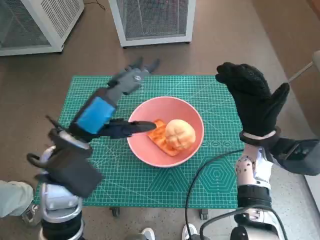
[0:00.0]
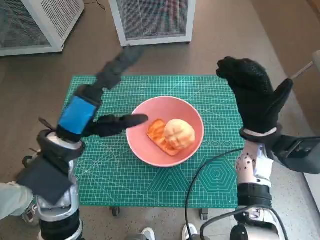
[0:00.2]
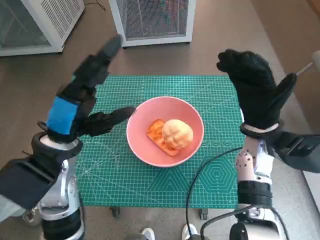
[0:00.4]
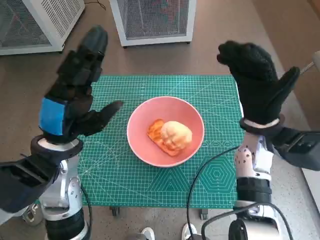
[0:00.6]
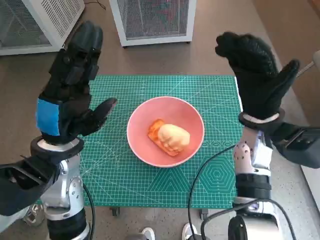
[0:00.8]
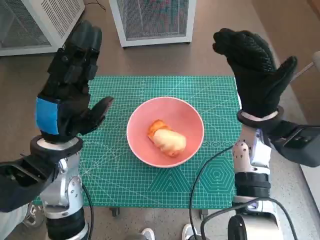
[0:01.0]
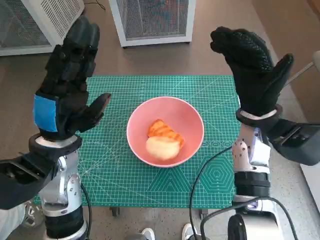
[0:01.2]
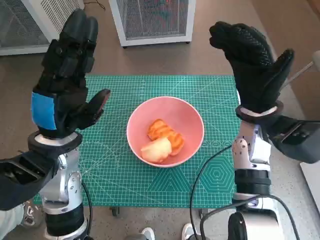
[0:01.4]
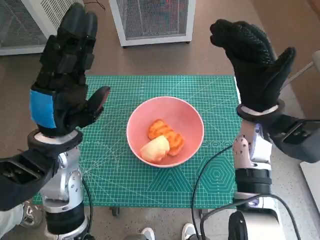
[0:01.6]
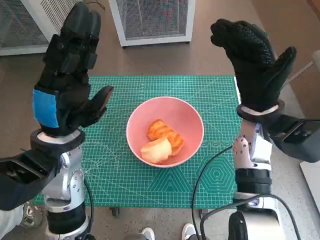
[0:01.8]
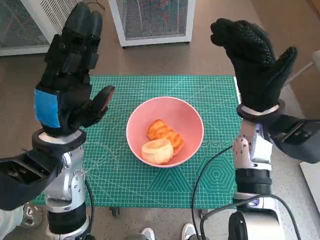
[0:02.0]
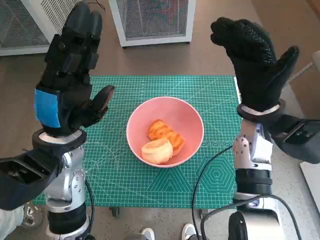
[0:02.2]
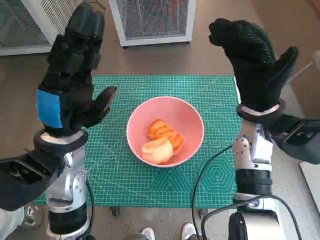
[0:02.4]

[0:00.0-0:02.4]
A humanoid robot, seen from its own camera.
Task of the whole recording: Push the bowl into the center of the table and put the bread into the bowl.
0:00.0 to 0:01.2: The right hand moves upward, approximately 5 cm.
0:01.2 to 0:02.4: The hands stay close to where they were, moving slightly.

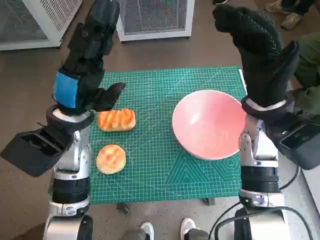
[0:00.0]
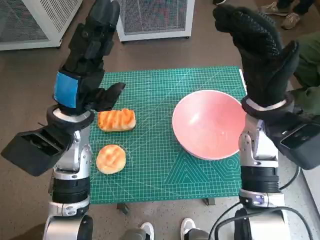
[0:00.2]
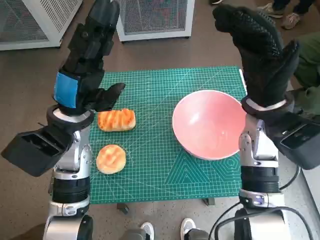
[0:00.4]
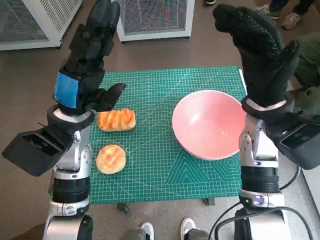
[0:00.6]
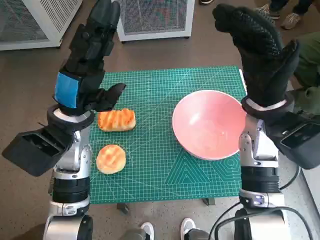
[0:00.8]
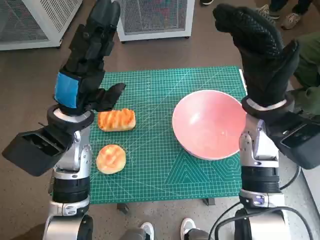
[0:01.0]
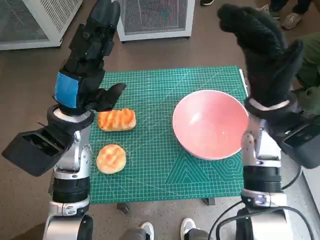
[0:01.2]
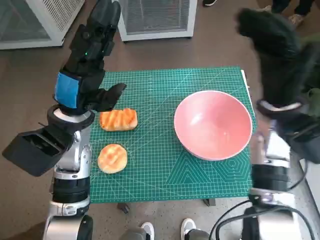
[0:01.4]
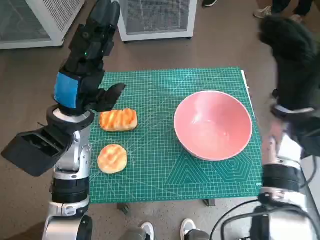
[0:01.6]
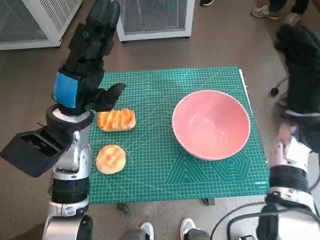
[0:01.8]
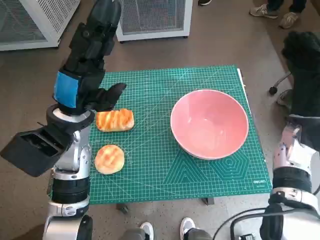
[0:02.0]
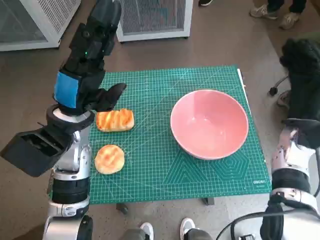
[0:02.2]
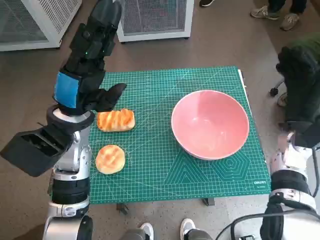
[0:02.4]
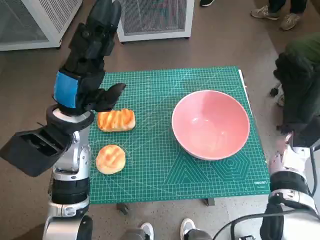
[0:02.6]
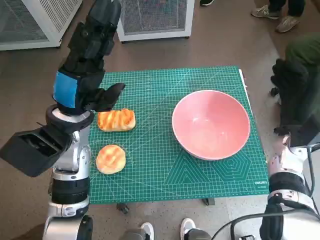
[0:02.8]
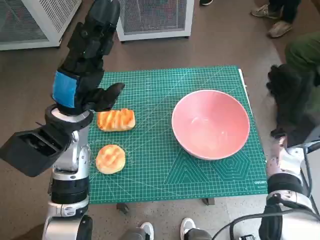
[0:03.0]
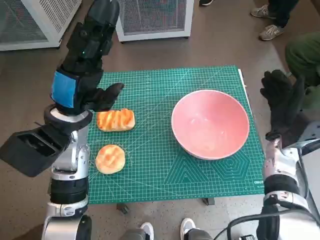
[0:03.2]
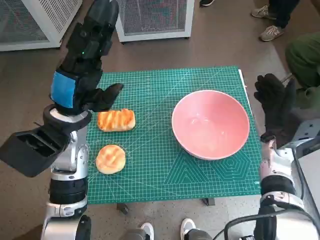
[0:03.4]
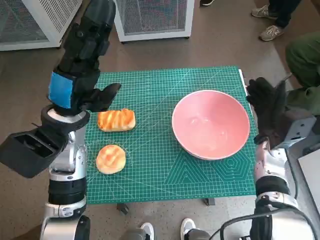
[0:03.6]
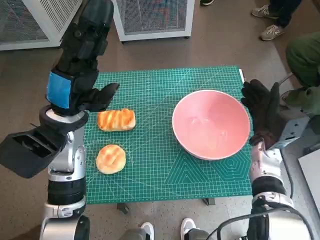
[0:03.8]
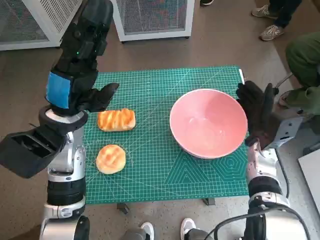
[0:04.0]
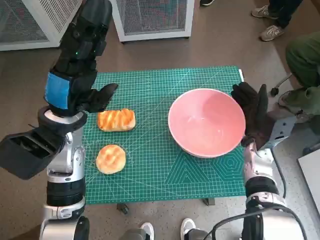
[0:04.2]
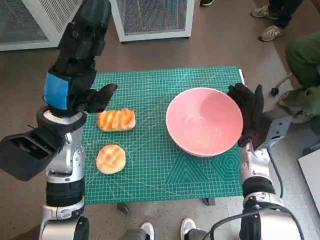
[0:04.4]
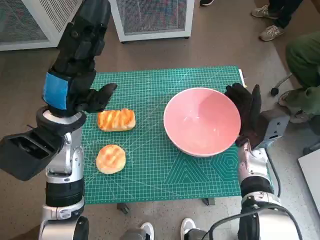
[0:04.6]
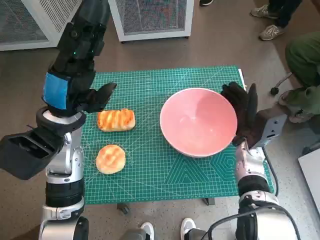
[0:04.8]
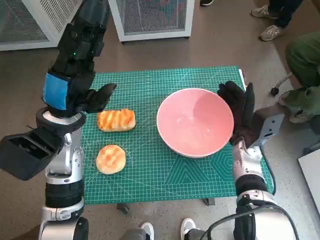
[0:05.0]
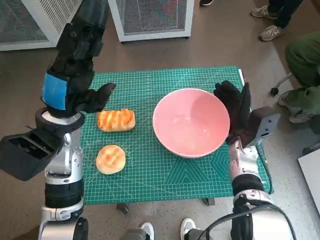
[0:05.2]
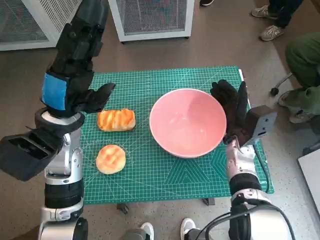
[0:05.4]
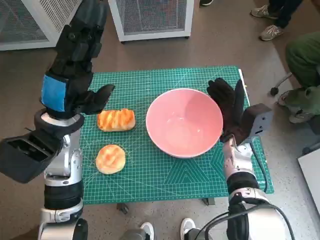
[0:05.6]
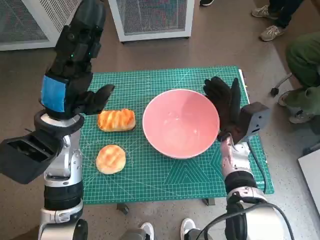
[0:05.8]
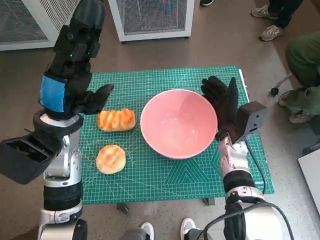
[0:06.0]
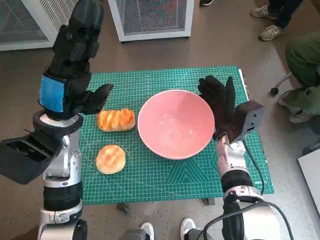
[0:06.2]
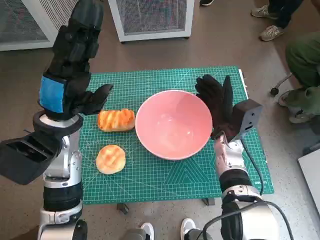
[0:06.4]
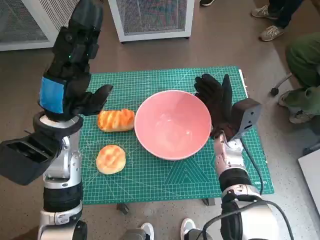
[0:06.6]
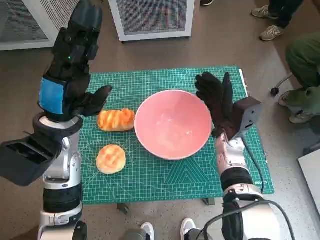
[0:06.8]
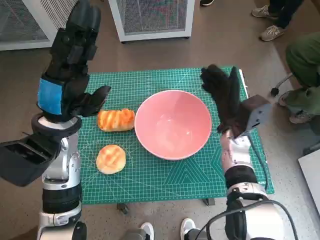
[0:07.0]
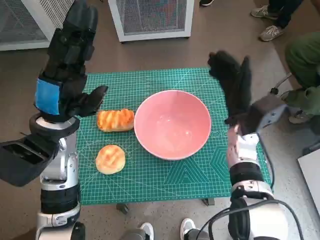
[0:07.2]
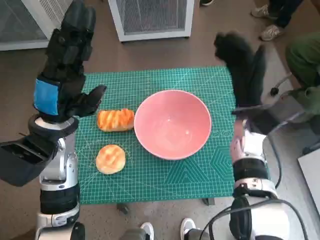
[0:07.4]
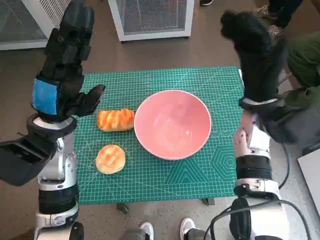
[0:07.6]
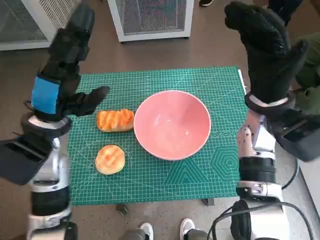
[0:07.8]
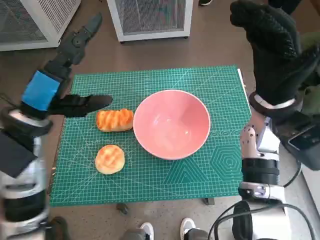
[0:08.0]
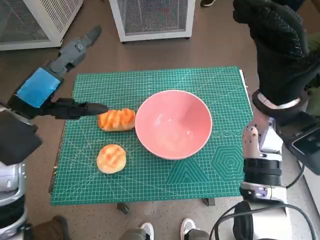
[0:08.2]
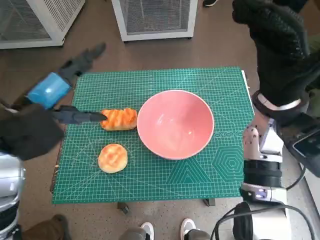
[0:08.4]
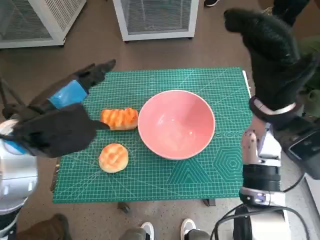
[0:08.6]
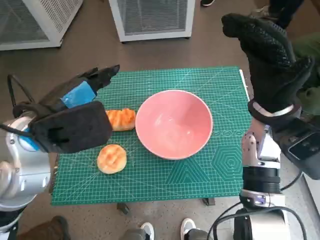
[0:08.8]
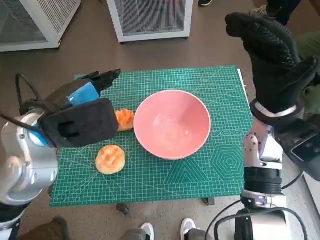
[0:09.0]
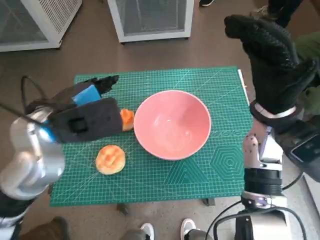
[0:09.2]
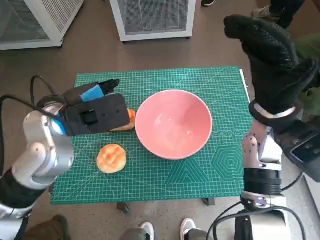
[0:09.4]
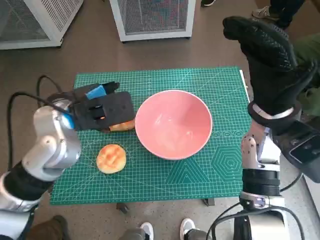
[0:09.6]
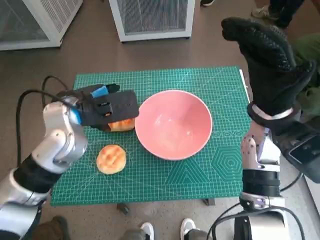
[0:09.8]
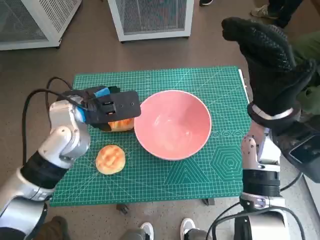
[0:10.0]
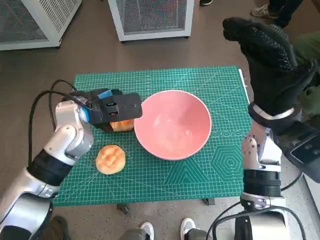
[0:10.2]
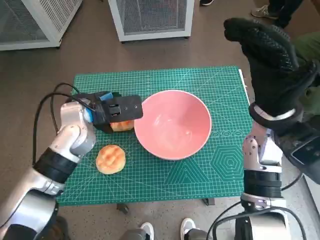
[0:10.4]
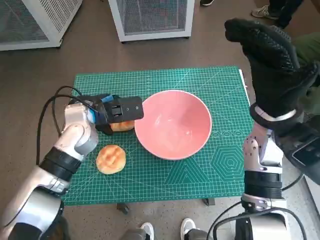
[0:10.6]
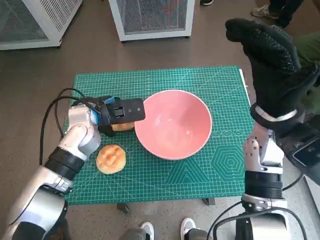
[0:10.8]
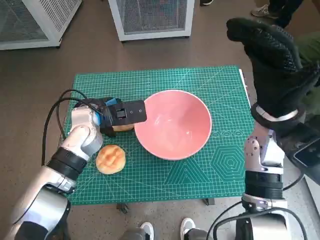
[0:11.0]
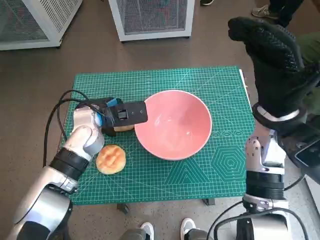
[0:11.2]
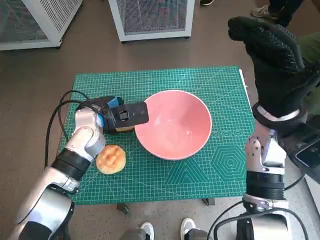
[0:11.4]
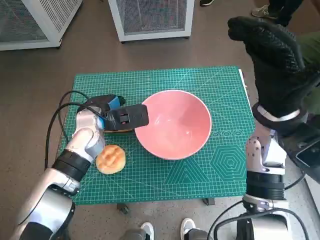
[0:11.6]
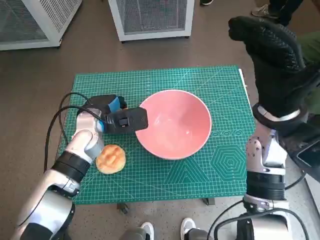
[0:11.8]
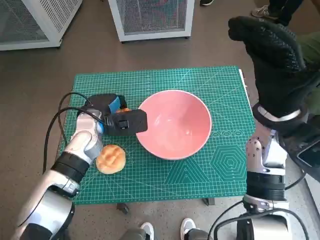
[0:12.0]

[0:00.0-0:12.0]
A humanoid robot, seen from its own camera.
Task of the whole recording: Push the bowl into the center of the table and put the bread into the bowl.
Step, 0:00.0 to 0:06.8: Move the pink bowl to the center of table with right hand.
Step, 0:07.2 to 0:11.8: Grasp the long bread with left hand.
0:01.6 to 0:03.0: The right hand shifts approximately 10 cm downward.
0:03.0 to 0:04.4: The right hand travels to the left by roughly 5 cm.
0:04.4 to 0:06.0: The right hand goes approximately 5 cm to the left.
0:06.0 to 0:07.6: The right hand heads upward, covering approximately 10 cm.
0:07.6 to 0:09.0: The left hand goes roughly 5 cm upward.
0:09.0 to 0:10.4: The left hand is displaced forward and downward by roughly 10 cm.
0:10.4 to 0:12.0: The left hand goes some 5 cm downward.

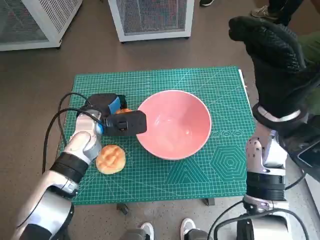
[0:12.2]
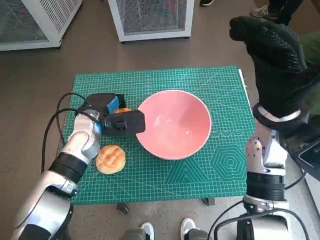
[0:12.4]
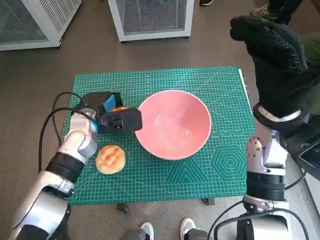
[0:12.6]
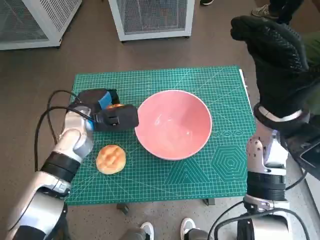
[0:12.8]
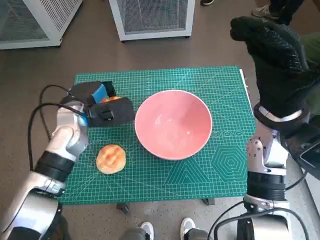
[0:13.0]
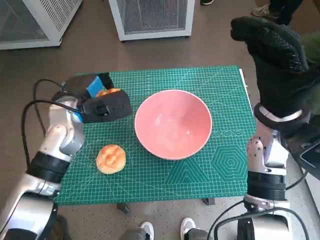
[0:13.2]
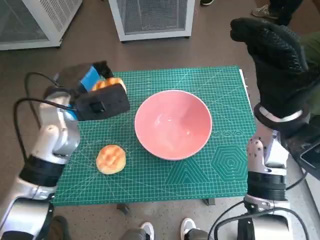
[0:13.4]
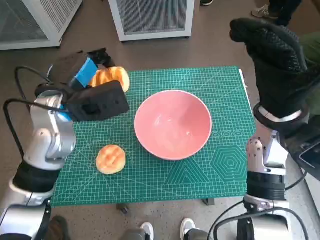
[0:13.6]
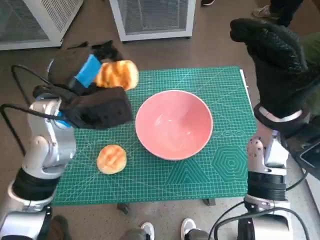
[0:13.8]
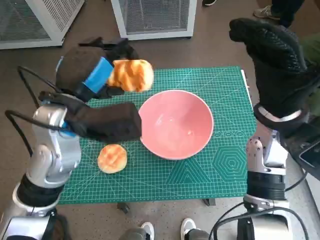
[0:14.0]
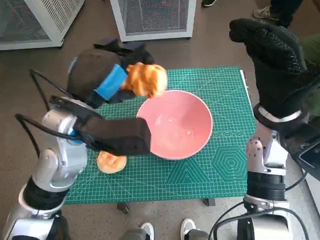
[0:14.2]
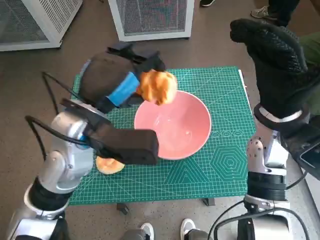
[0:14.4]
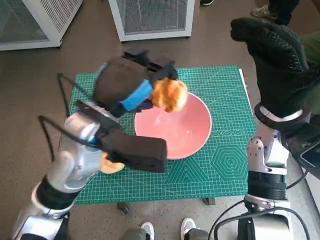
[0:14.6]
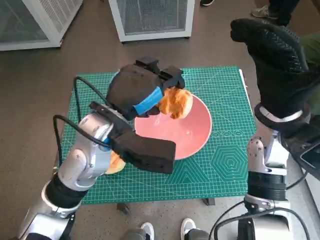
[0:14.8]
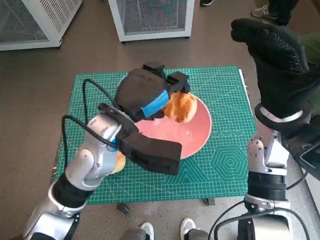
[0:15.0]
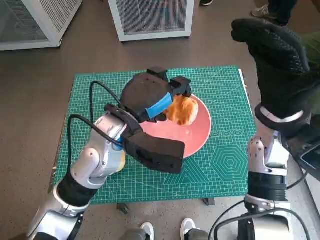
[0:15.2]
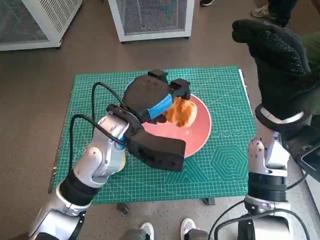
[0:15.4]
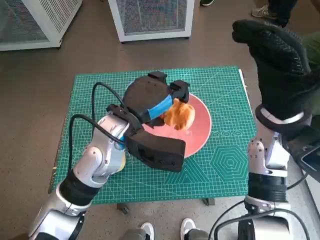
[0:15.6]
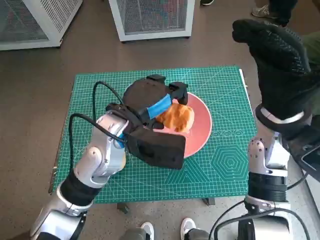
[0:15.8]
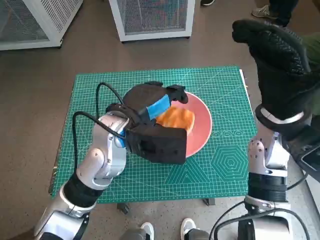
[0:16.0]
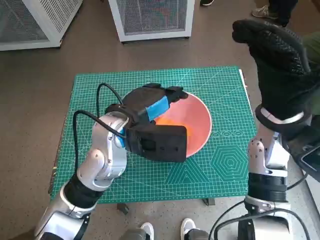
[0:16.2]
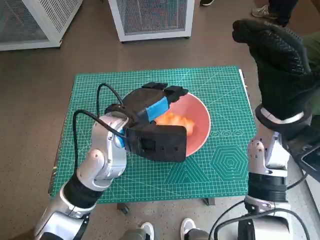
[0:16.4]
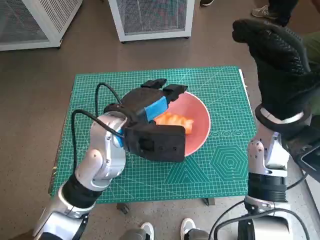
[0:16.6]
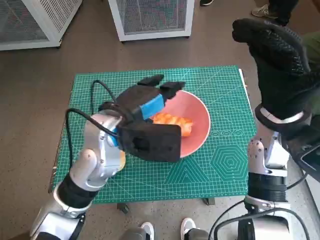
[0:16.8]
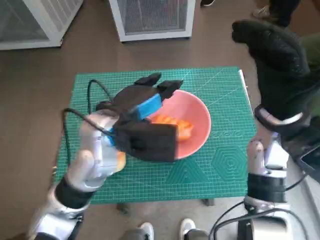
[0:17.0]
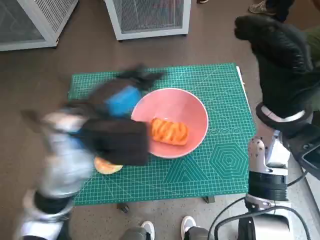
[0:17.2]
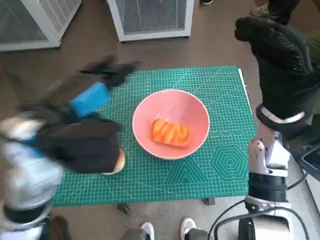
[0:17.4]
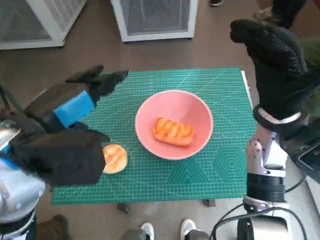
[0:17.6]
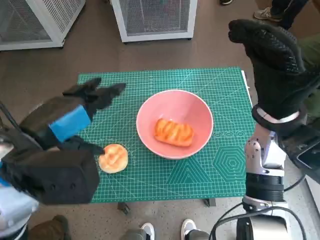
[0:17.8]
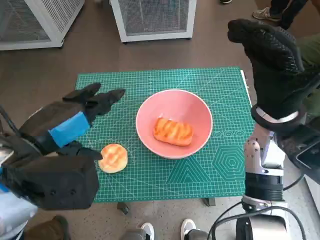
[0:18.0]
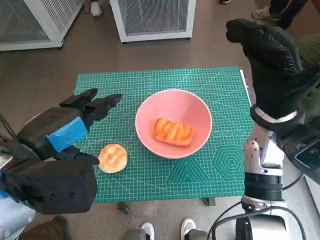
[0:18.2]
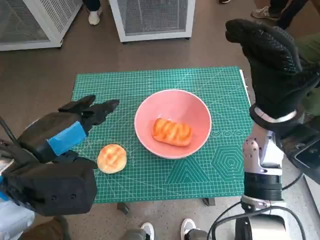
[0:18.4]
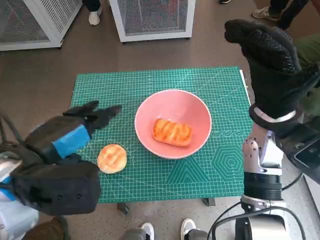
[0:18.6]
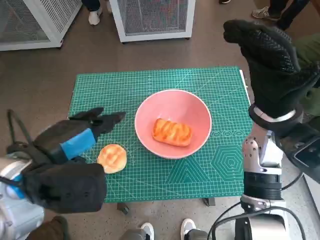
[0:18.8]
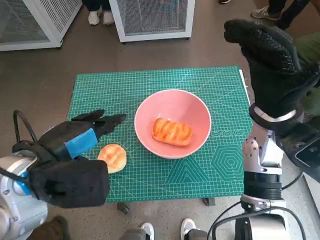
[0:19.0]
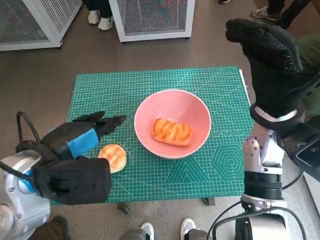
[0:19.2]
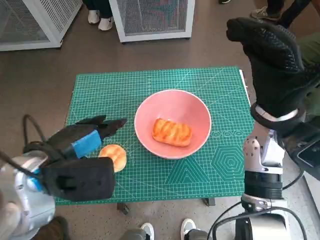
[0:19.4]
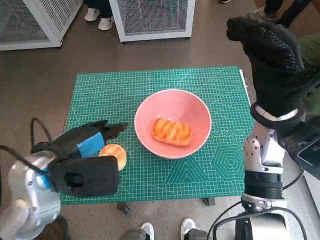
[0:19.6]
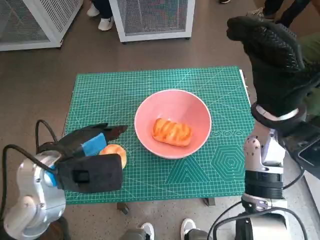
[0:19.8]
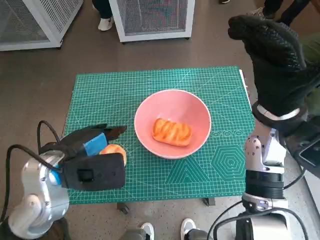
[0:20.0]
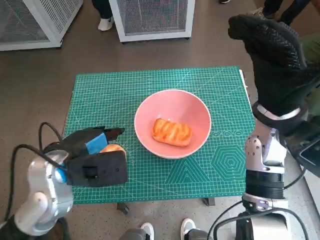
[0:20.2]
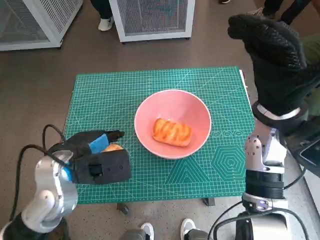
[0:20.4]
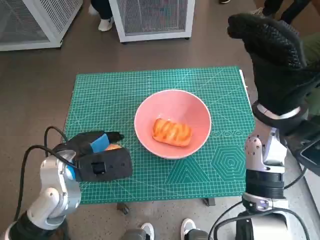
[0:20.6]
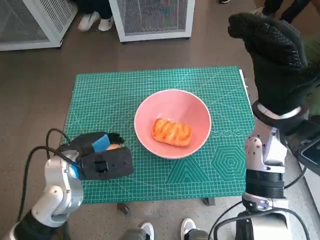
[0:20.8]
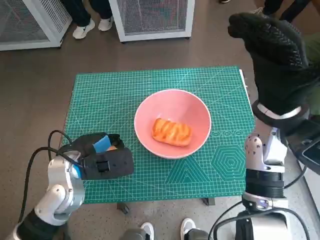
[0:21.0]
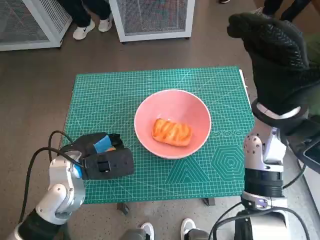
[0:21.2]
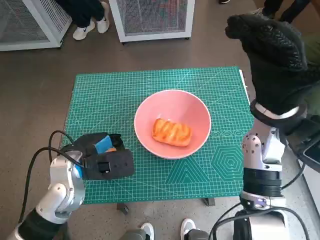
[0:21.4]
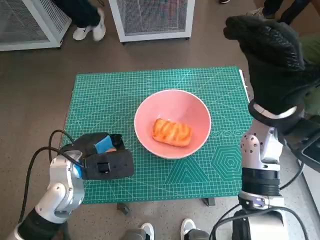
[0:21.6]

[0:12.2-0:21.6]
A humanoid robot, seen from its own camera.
Task of the whole recording: Push the bowl into the center of the table and put the bread into the bowl.
Step, 0:12.2 to 0:16.0: Place the long bread in pink bowl with left hand.
Step, 0:16.2 to 0:21.2: Grasp the round bread with left hand.
0:12.2 to 0:13.8: The left hand heads upward, covering about 10 cm.
0:13.8 to 0:15.4: The left hand goes about 10 cm to the right.
0:17.0 to 0:18.4: The left hand shifts about 15 cm backward and to the left.
0:18.4 to 0:20.0: The left hand is displaced downward by about 5 cm.
0:20.0 to 0:21.6: The left hand shifts roughly 5 cm downward.
